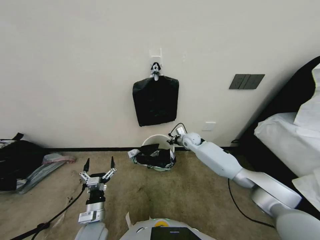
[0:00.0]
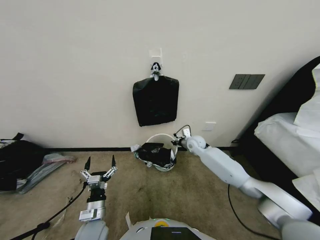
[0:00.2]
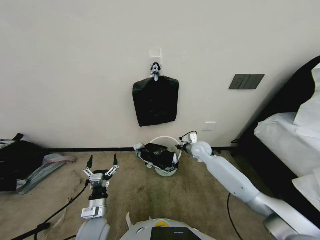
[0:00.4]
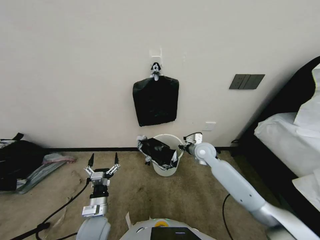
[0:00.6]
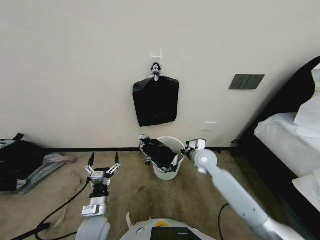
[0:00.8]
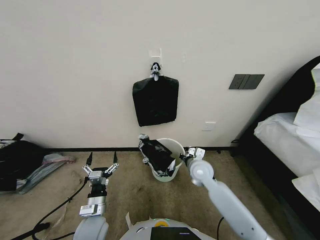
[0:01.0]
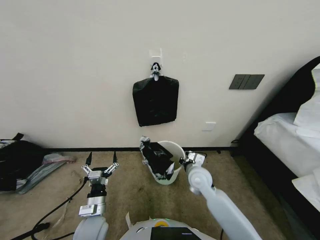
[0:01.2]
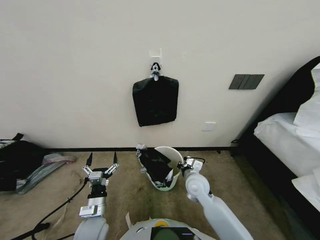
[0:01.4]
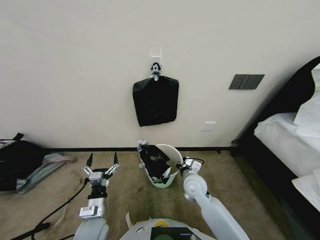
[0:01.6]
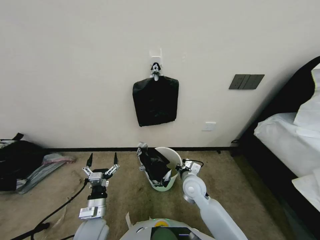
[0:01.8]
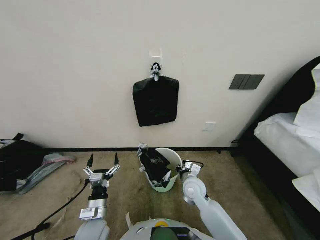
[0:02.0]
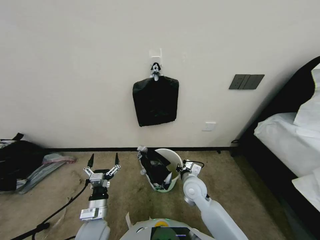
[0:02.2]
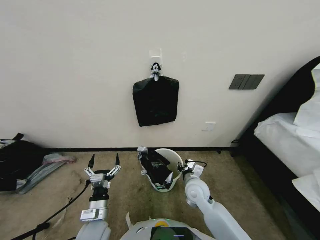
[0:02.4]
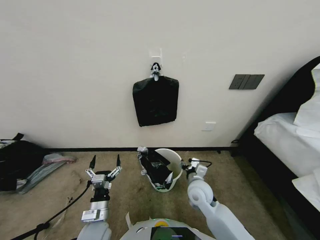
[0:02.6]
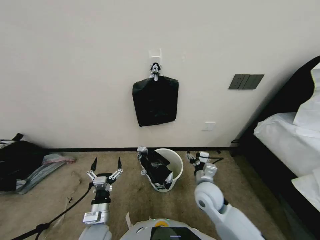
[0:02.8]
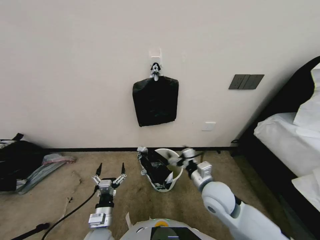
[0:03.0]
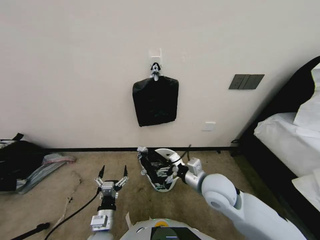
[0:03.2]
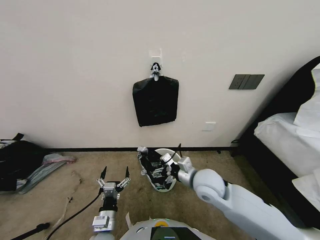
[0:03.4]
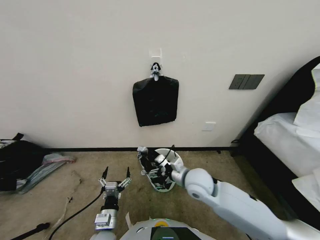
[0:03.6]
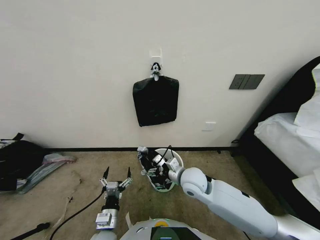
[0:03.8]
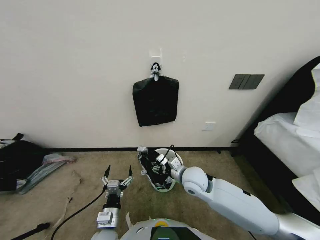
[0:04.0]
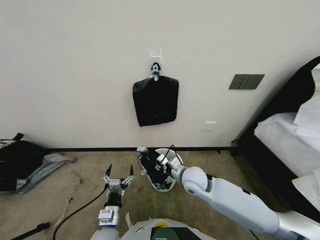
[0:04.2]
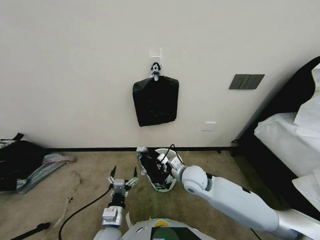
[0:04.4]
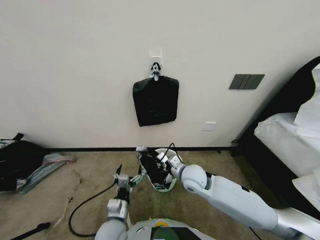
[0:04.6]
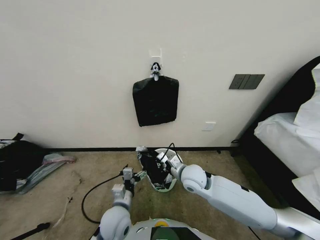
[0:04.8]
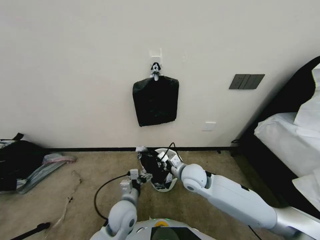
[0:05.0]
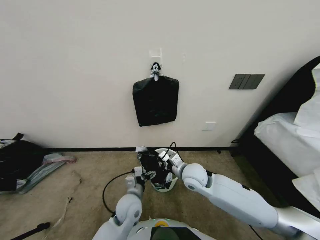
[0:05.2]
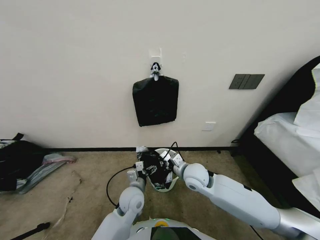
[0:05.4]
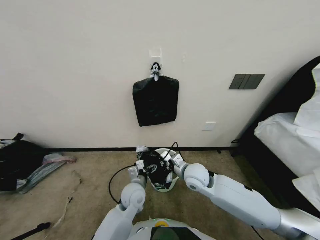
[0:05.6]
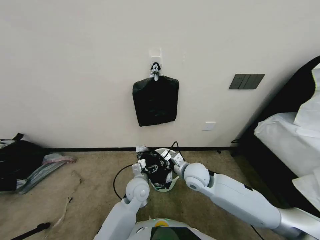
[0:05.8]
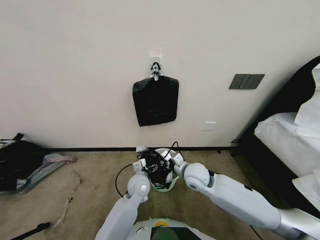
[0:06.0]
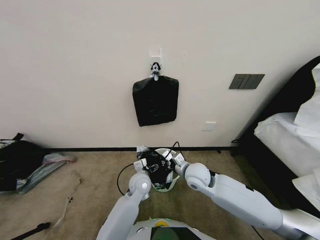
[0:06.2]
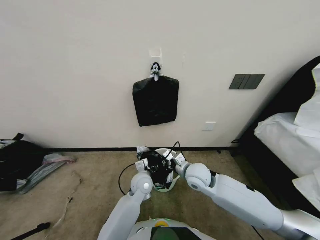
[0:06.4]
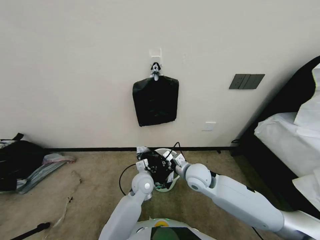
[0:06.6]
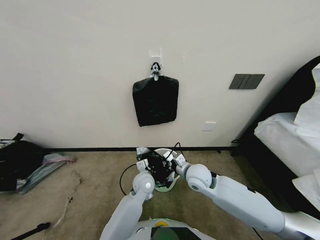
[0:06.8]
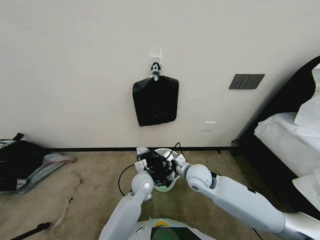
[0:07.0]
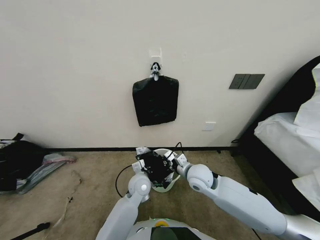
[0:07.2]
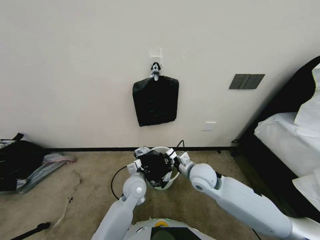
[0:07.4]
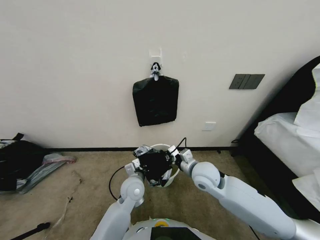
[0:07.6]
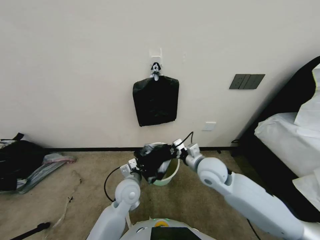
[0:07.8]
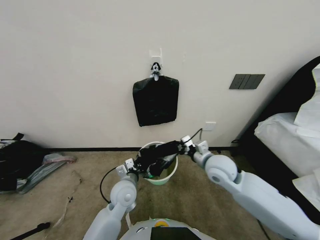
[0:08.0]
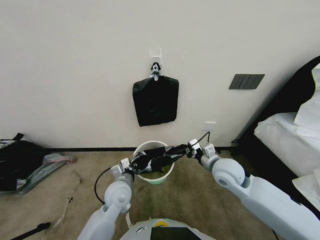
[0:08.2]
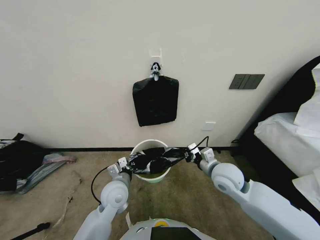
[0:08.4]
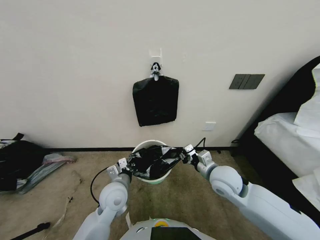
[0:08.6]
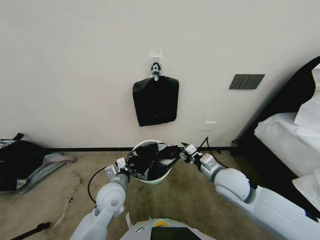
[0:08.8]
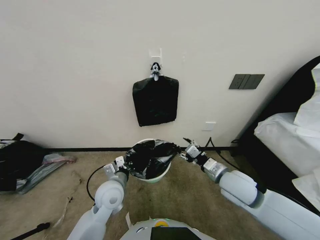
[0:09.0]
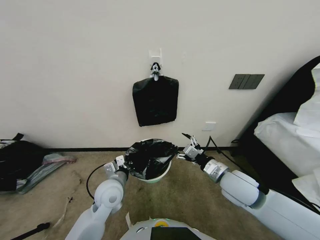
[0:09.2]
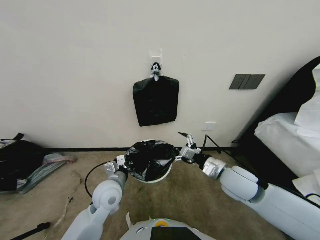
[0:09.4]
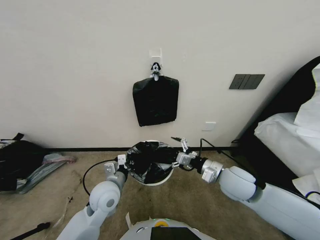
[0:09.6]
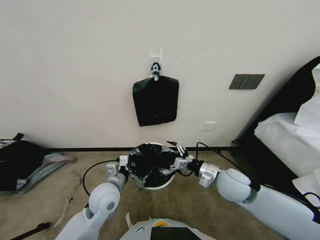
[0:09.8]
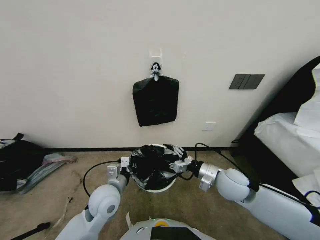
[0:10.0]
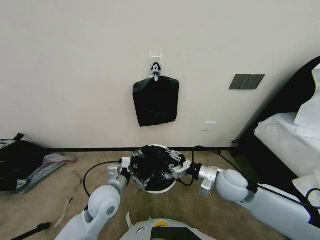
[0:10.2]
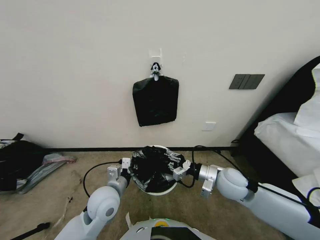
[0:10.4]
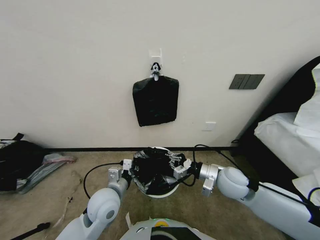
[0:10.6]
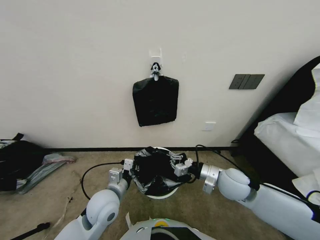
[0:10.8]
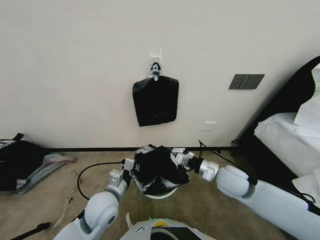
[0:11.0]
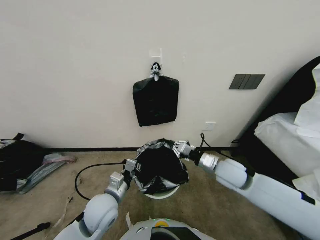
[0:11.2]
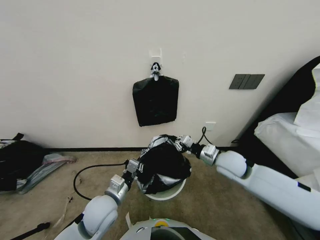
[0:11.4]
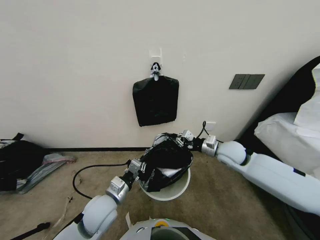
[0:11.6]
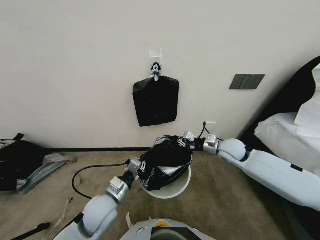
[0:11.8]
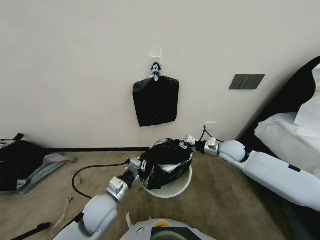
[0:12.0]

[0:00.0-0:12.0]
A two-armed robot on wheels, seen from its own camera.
Task of the whole recording: Place a trash bag onto the trash bin.
0:00.0 to 0:01.6: The right gripper is displaced backward by about 25 cm.
0:01.6 to 0:03.0: The right gripper travels backward and upward by roughly 10 cm, and opens.
0:03.0 to 0:04.4: The right gripper is displaced forward and to the left by about 10 cm, and closes up.
0:04.4 to 0:06.0: The left gripper goes approximately 20 cm forward and to the right.
0:06.0 to 0:07.6: The left gripper closes up.
0:07.6 to 0:09.0: The right gripper is displaced to the right by roughly 10 cm, and opens; the left gripper goes some 10 cm to the left and upward.
0:09.0 to 0:10.4: The right gripper opens, then closes once more.
0:10.4 to 0:12.0: The right gripper heads forward and to the right, covering approximately 15 cm, and closes.

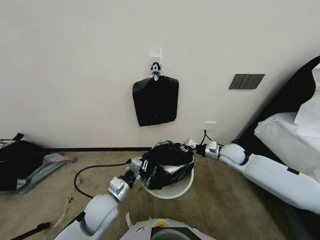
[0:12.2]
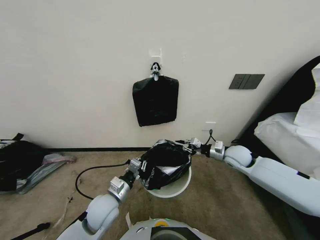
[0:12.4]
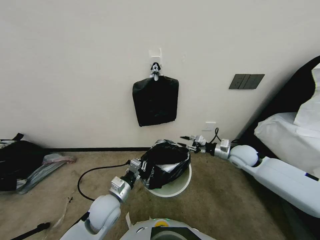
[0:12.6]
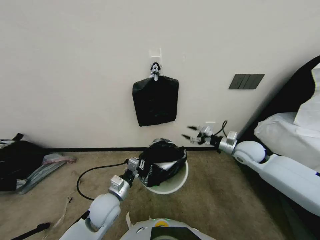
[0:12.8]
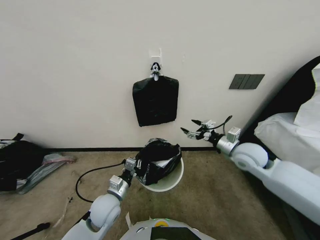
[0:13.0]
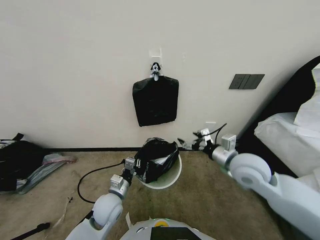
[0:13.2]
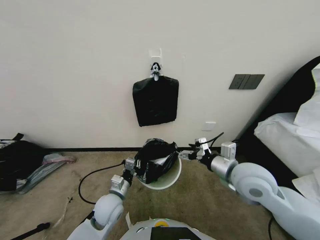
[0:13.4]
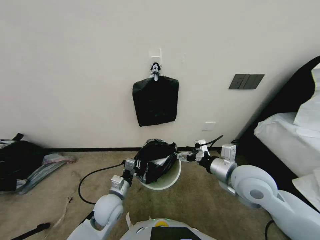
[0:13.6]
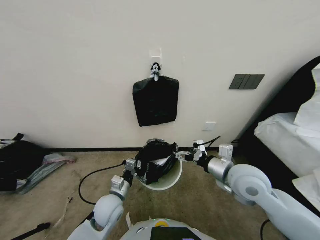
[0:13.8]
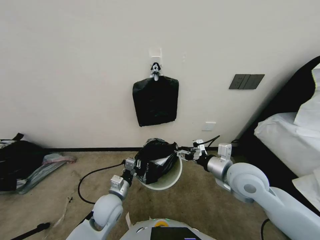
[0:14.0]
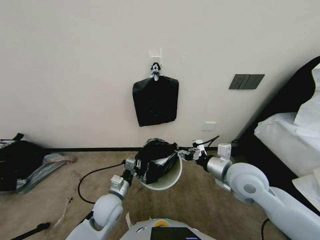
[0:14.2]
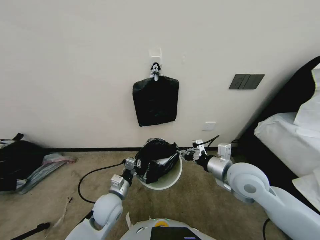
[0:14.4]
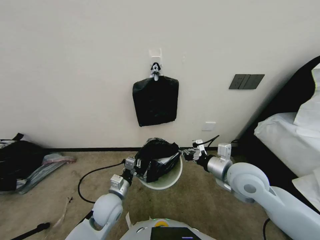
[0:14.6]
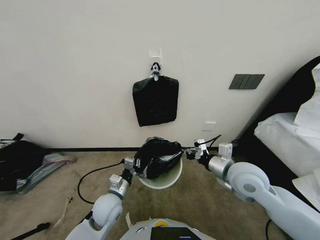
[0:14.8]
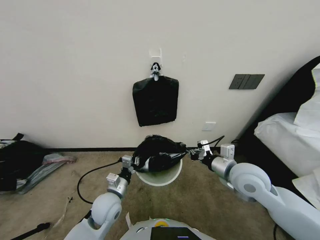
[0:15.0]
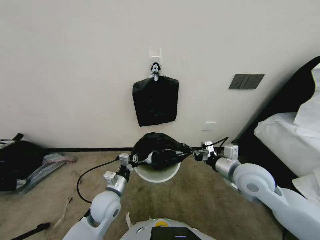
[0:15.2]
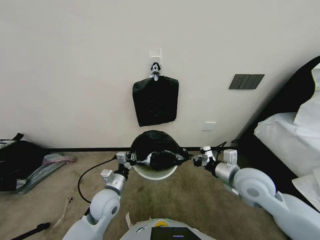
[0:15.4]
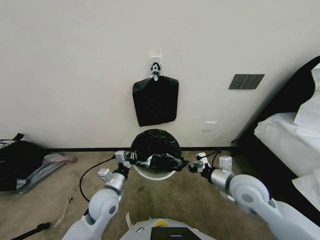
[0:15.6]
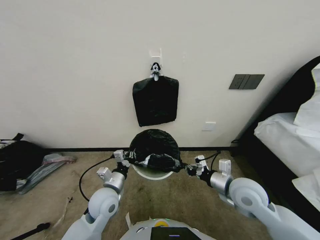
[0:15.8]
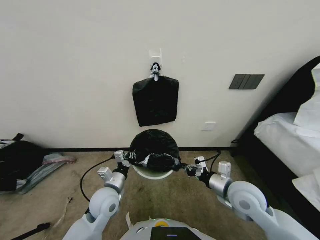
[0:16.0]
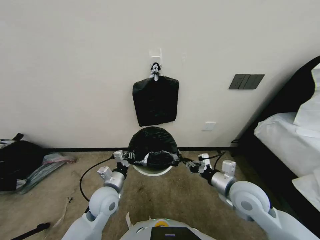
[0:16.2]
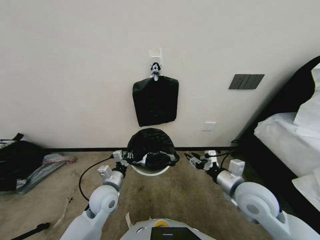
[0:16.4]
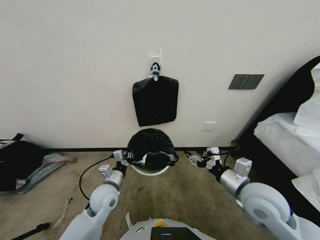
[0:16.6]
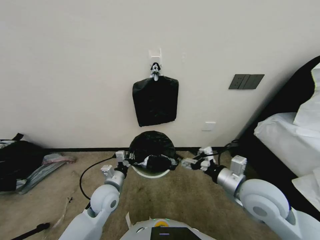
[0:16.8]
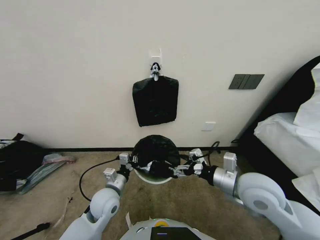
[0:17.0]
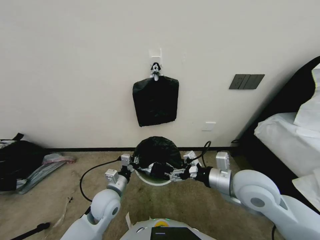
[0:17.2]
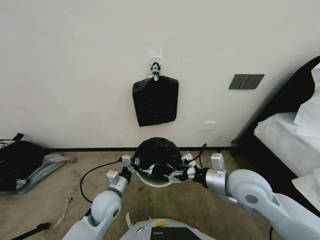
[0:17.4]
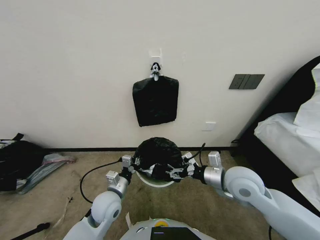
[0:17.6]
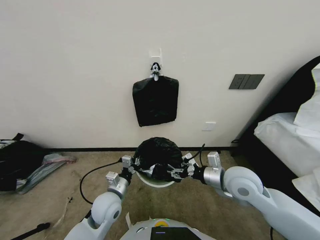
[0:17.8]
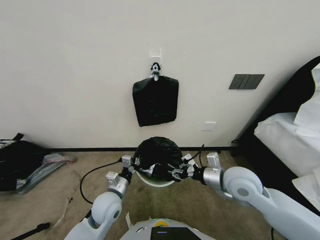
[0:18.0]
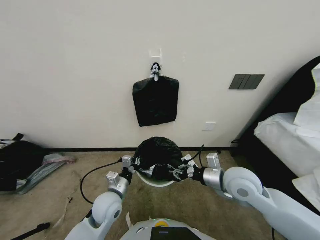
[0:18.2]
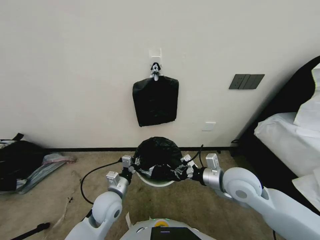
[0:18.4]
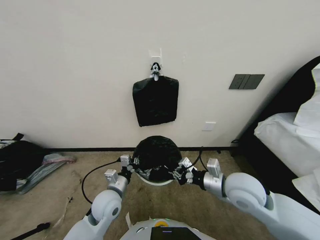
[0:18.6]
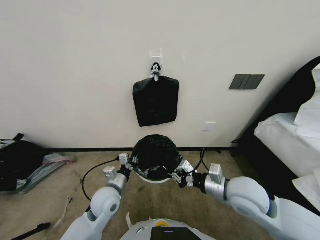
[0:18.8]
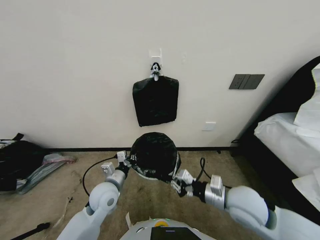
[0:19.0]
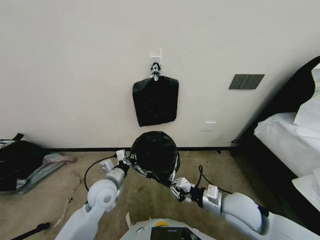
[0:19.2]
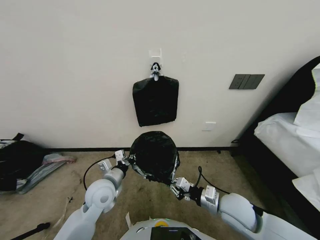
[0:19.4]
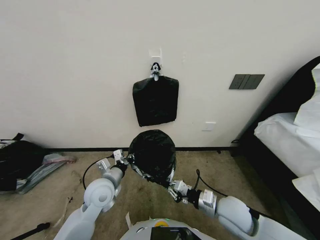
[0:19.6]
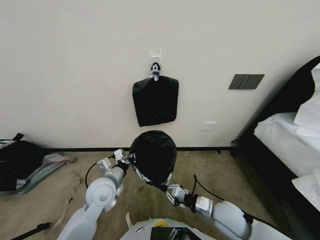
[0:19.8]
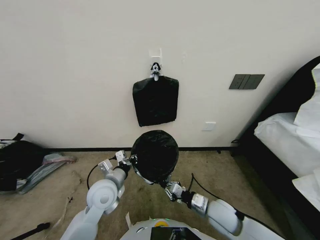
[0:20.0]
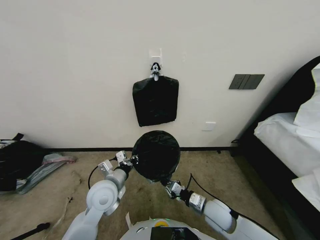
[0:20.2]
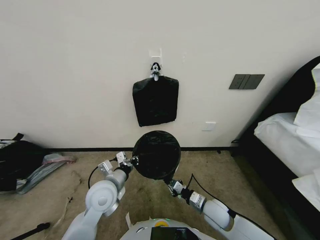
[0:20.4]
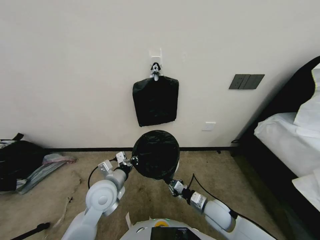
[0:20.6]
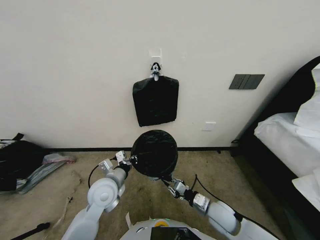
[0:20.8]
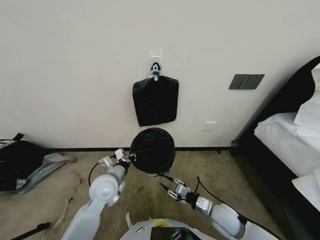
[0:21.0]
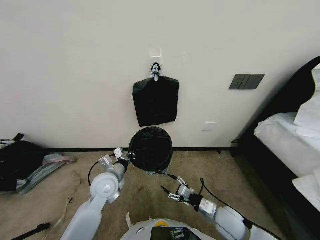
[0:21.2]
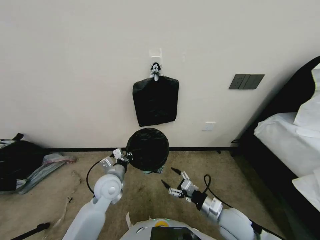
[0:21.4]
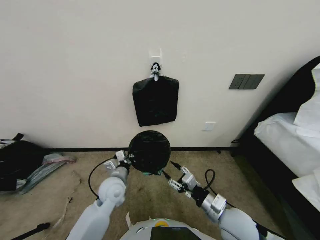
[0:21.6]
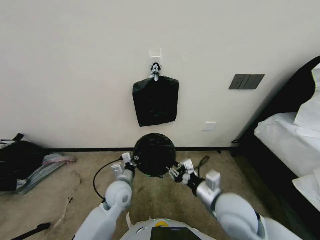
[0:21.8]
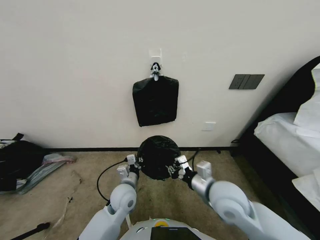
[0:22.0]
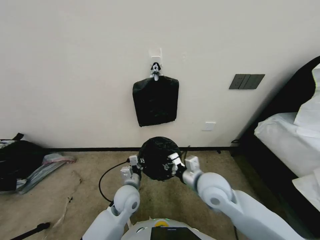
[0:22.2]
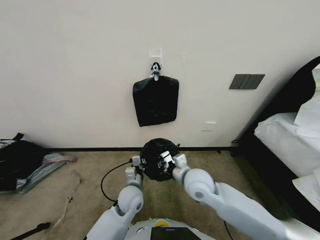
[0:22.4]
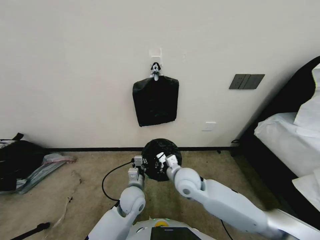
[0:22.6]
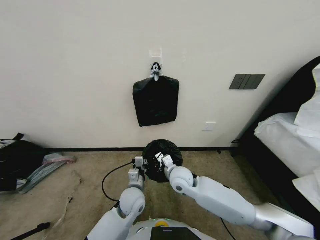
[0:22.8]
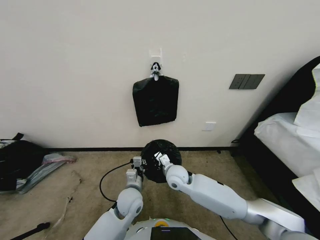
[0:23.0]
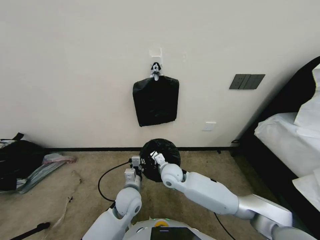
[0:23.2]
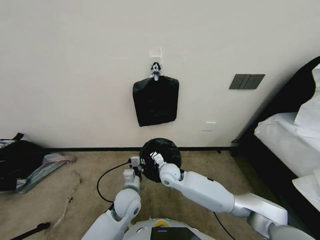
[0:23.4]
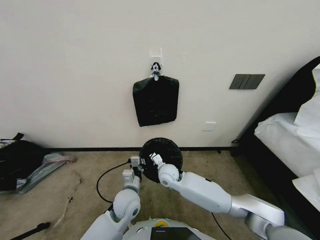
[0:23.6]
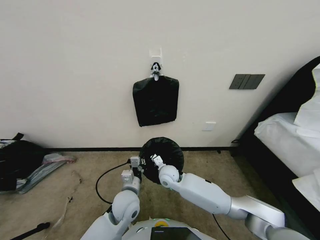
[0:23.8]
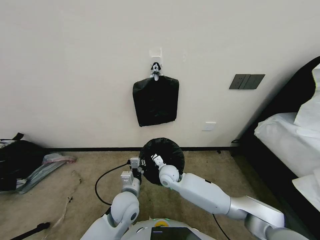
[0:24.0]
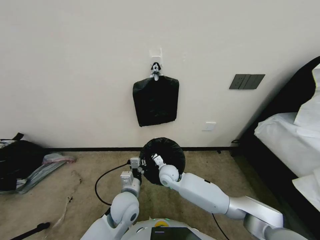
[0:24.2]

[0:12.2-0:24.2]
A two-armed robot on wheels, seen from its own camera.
Task of the whole recording: Place a trash bag onto the trash bin.
0:12.2 to 0:13.8: The right gripper goes approximately 20 cm backward, upward and to the left, and opens its fingers. Meanwhile the left gripper ends up about 5 cm from where it was.
0:13.8 to 0:15.2: The right gripper closes up.
0:15.2 to 0:16.6: The right gripper travels backward by approximately 5 cm, and opens its fingers.
0:16.6 to 0:18.2: The right gripper changes place by roughly 5 cm, and opens, then closes once more.
0:18.2 to 0:19.8: The left gripper shifts approximately 5 cm upward. The right gripper goes about 15 cm downward and backward.
0:19.8 to 0:21.2: The right gripper goes some 5 cm downward, and opens.
0:21.2 to 0:22.6: The left gripper shifts about 10 cm to the right and downward. The right gripper is displaced to the left, upward and forward by approximately 20 cm, and closes its fingers.
0:22.6 to 0:24.2: The right gripper travels downward, forward and to the left by roughly 15 cm.
